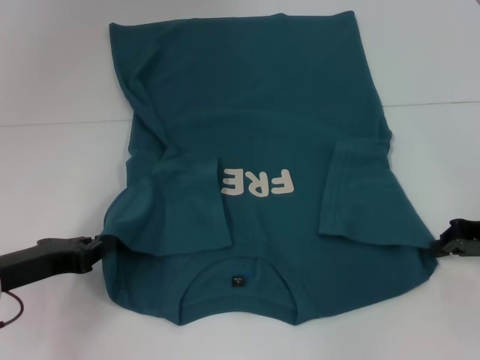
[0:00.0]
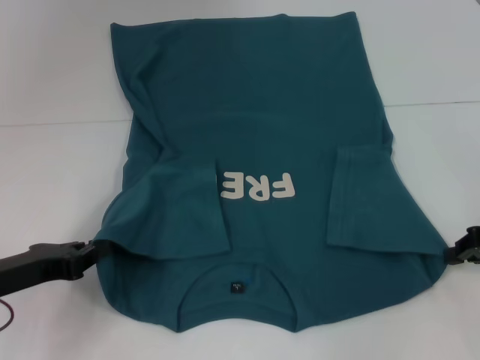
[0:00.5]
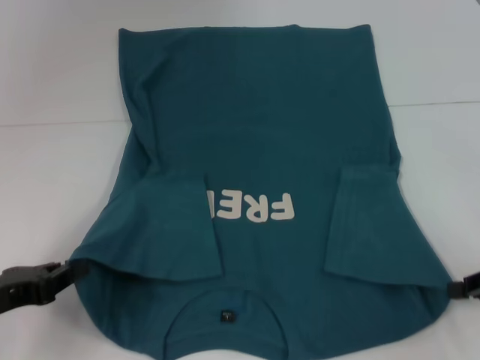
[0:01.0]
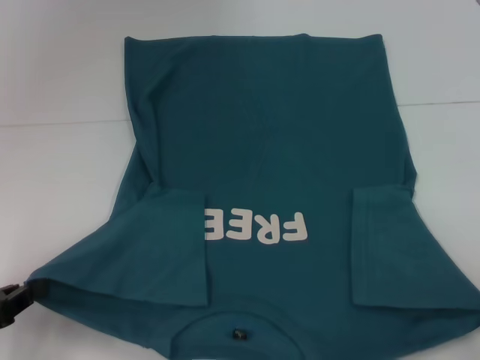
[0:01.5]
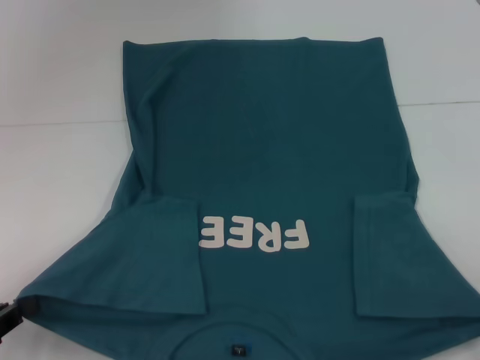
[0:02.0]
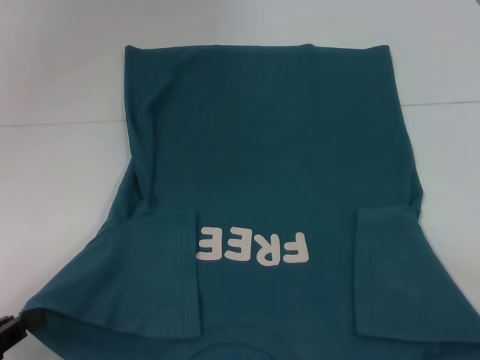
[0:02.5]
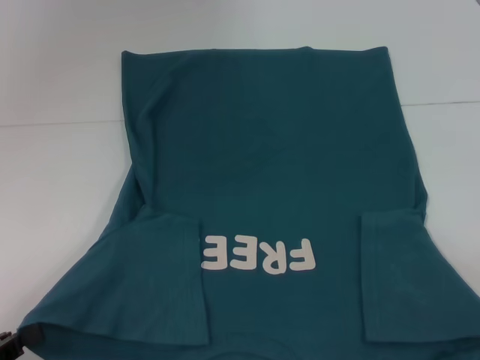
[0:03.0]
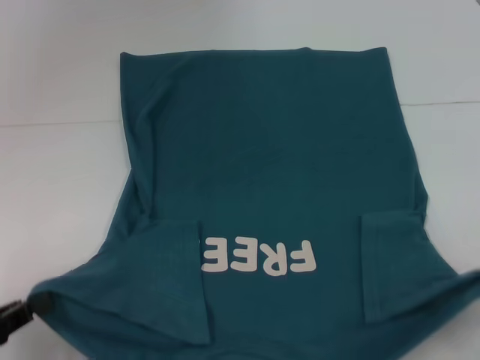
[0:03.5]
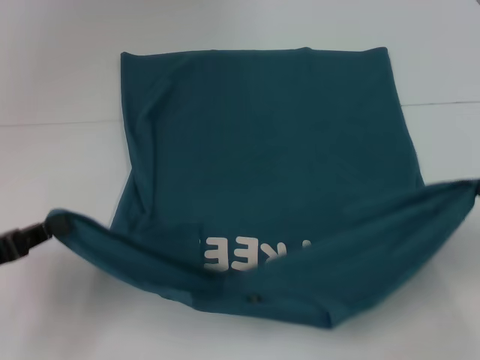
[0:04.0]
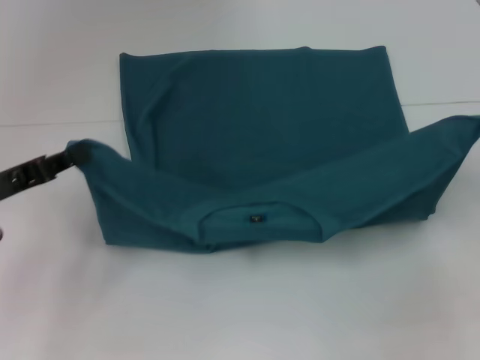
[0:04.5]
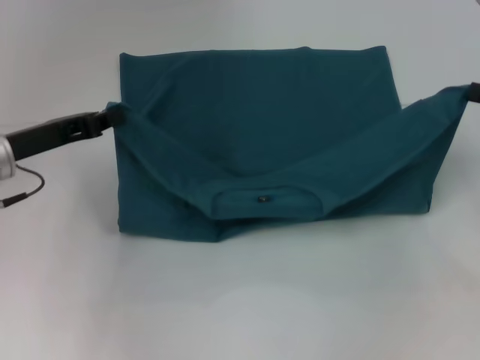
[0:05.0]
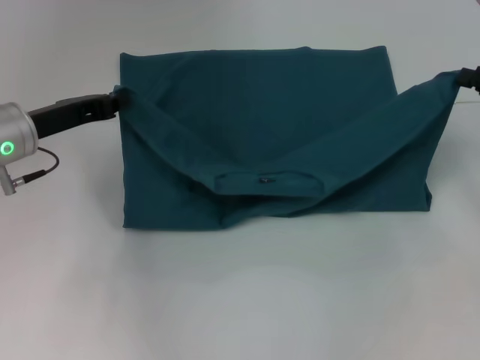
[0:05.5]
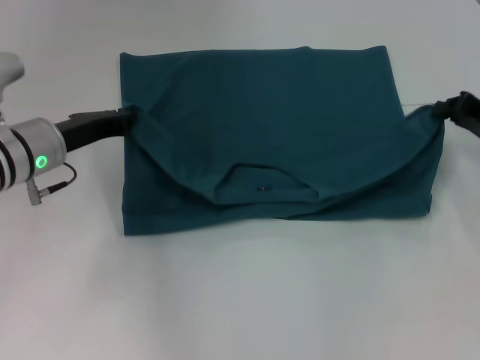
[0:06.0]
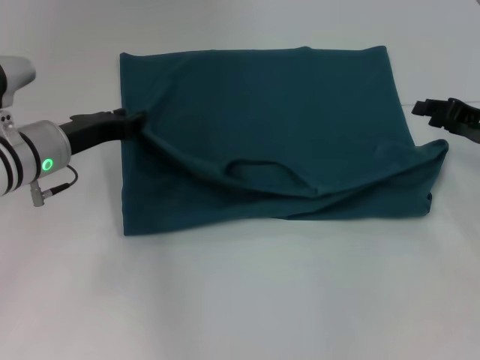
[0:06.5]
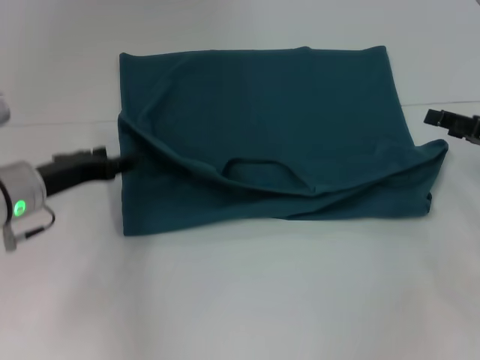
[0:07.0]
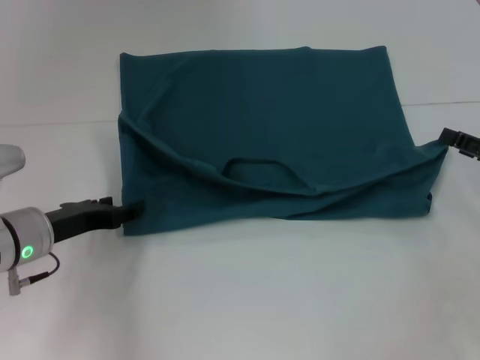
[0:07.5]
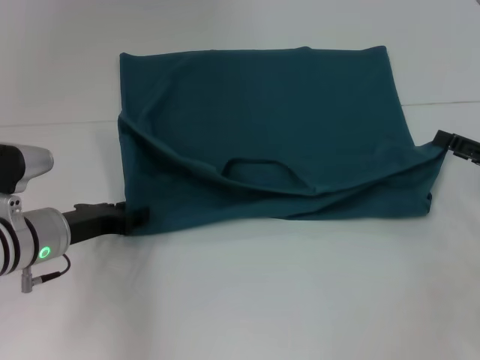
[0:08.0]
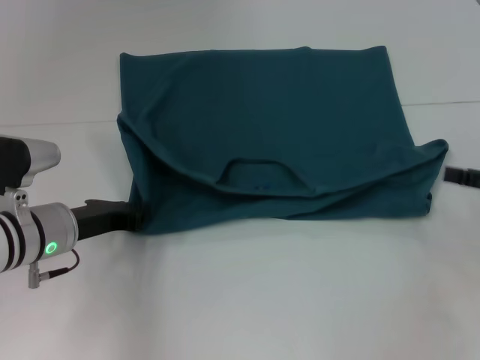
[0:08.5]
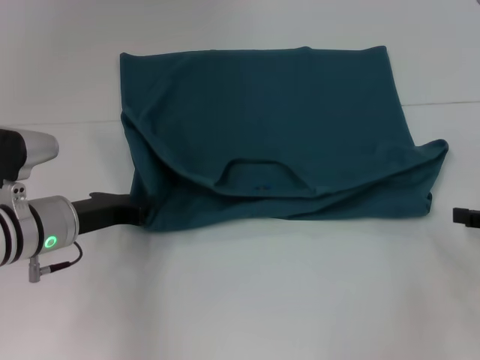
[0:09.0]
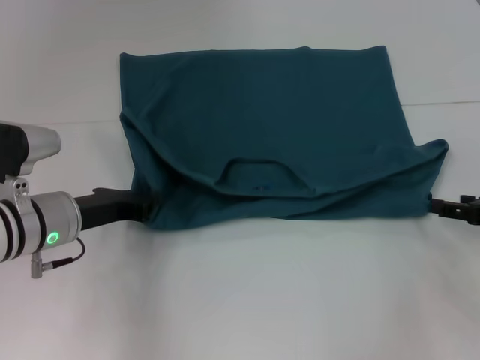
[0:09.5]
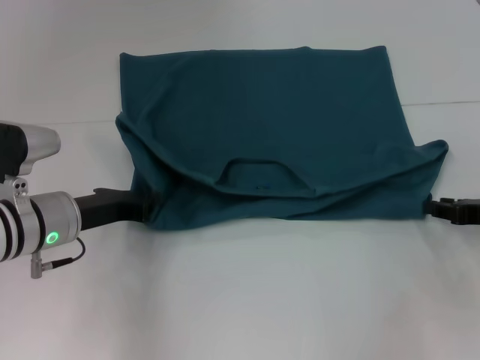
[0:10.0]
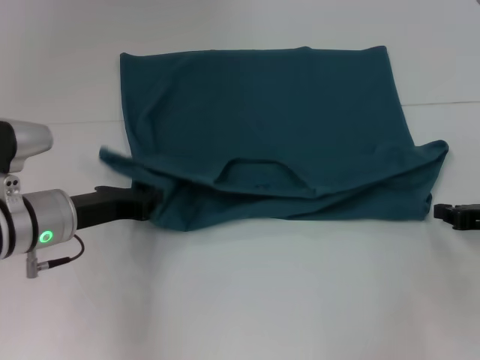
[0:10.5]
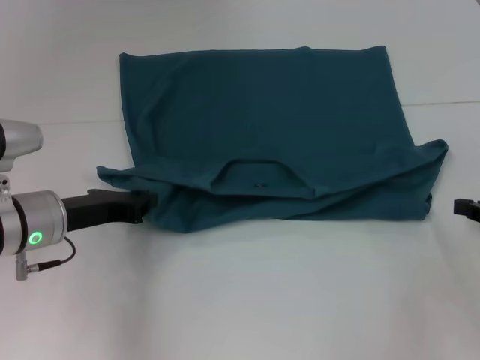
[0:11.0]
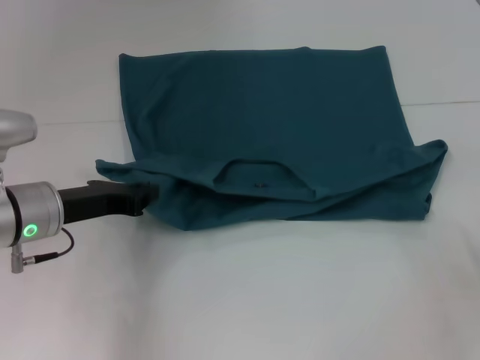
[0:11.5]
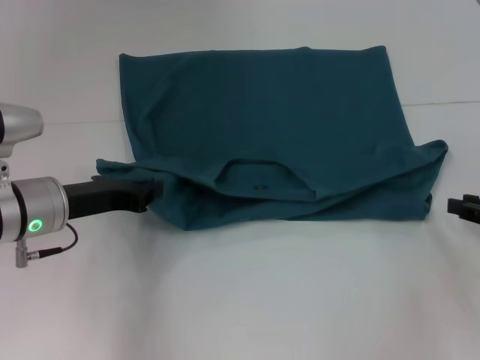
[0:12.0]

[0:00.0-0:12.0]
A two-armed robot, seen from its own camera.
Step, 0:00.0 to 0:02.0: Grab the bottom right corner with your right hand.
Step, 0:02.5 to 0:06.0: Fold the clothes to the left.
Step, 0:02.5 to 0:06.0: Fold the clothes to the right.
0:00.0 to 0:02.0: The right gripper goes roughly 15 cm backward and to the right; the left gripper moves backward and to the left, some 10 cm.
0:02.0 to 0:04.0: The left gripper moves forward, some 5 cm. The right gripper goes roughly 10 cm forward and upward.
0:04.0 to 0:06.0: The left gripper moves forward and to the right, roughly 20 cm. The right gripper is displaced forward by roughly 10 cm.
0:06.0 to 0:08.0: The right gripper heads backward, covering approximately 10 cm, and opens its fingers. Meanwhile the left gripper travels backward and downward by some 10 cm, and opens its fingers.
0:08.0 to 0:10.0: The left gripper closes up.
0:10.0 to 0:12.0: The right gripper closes.

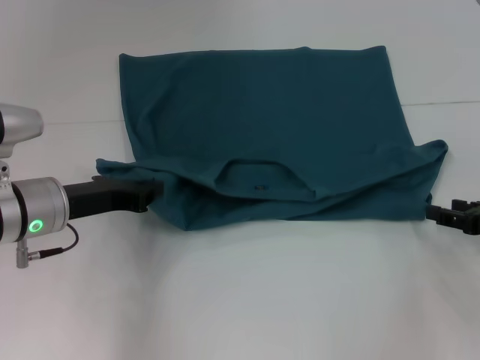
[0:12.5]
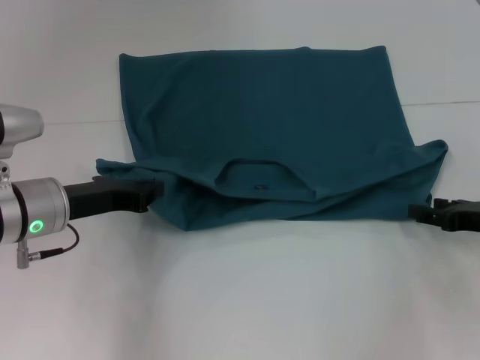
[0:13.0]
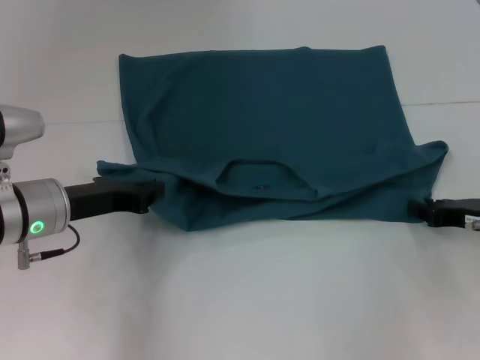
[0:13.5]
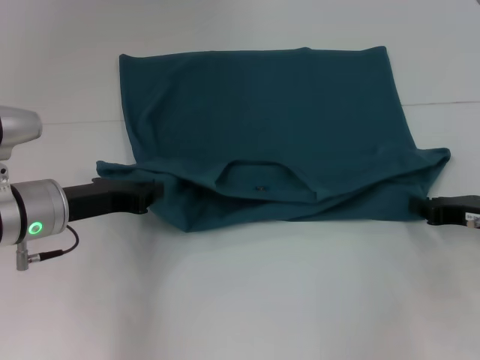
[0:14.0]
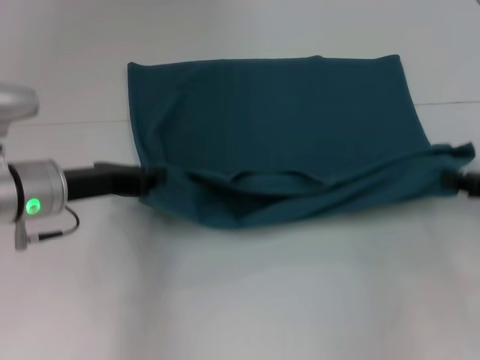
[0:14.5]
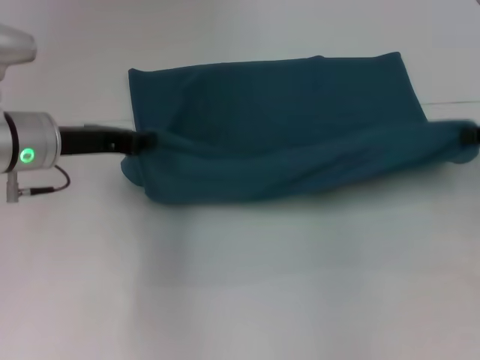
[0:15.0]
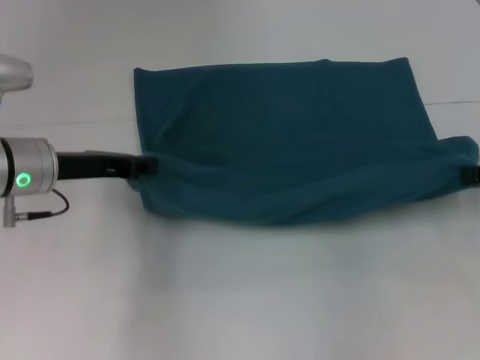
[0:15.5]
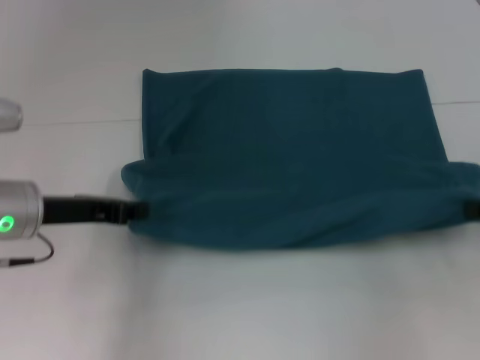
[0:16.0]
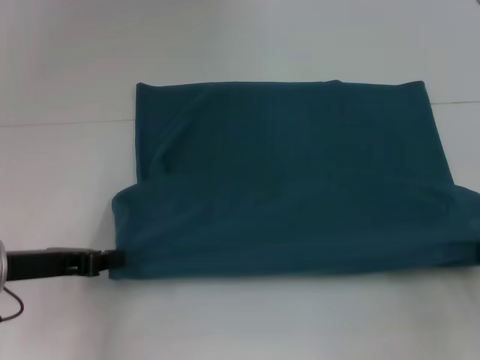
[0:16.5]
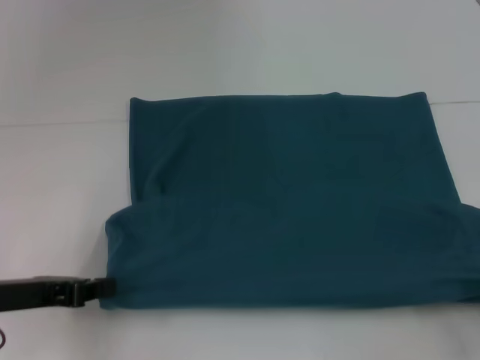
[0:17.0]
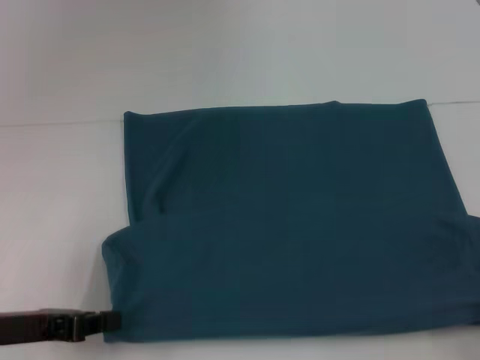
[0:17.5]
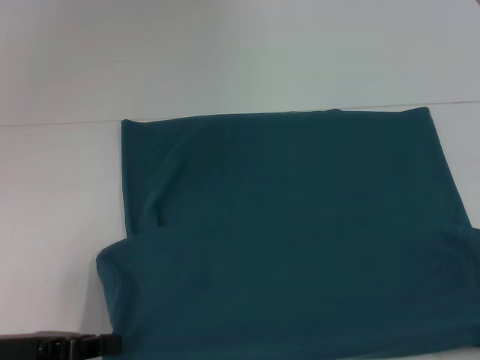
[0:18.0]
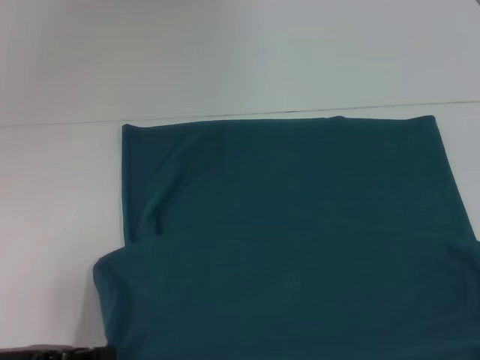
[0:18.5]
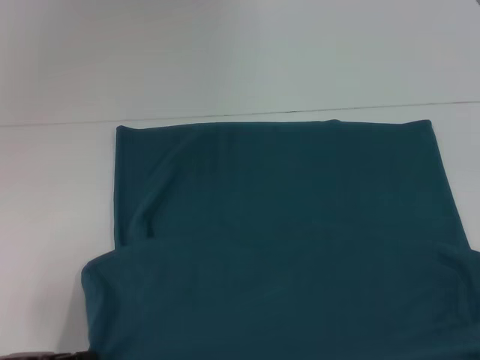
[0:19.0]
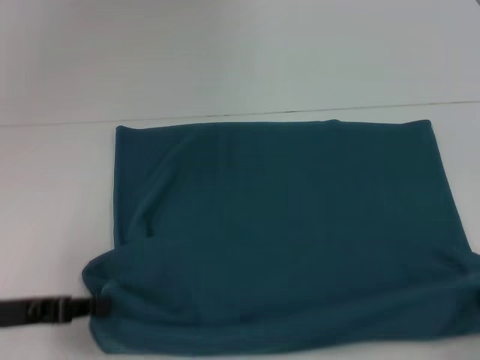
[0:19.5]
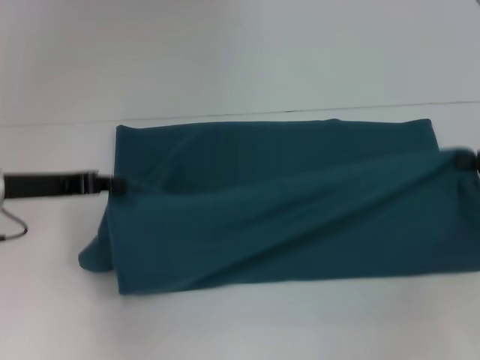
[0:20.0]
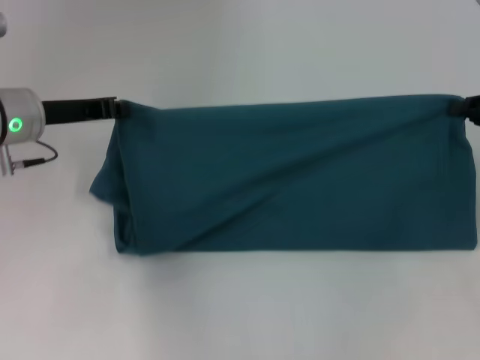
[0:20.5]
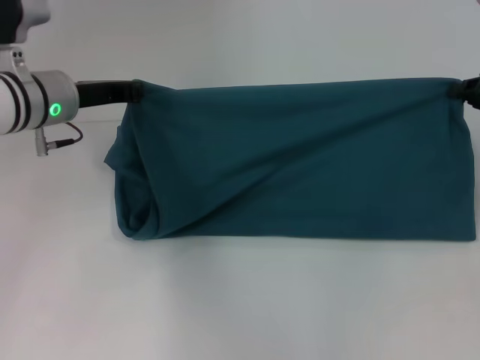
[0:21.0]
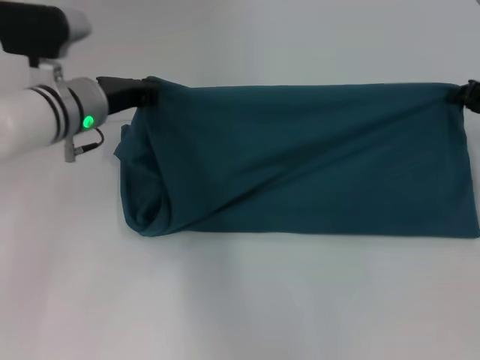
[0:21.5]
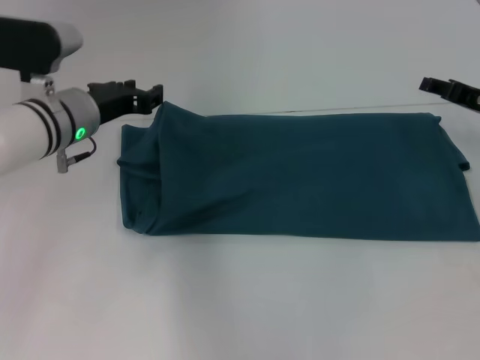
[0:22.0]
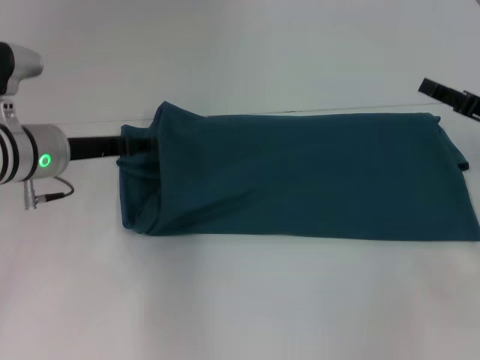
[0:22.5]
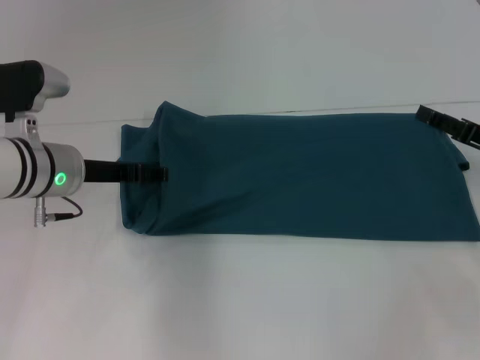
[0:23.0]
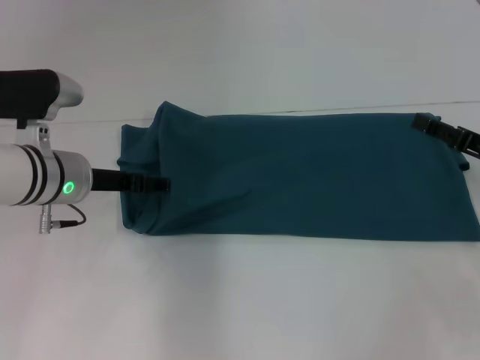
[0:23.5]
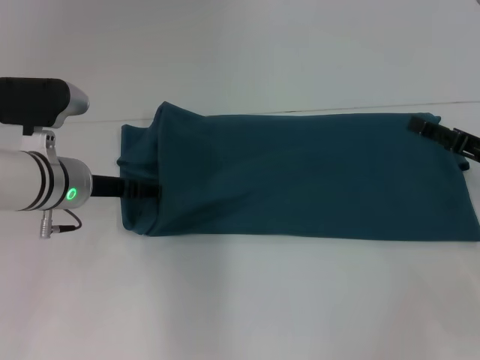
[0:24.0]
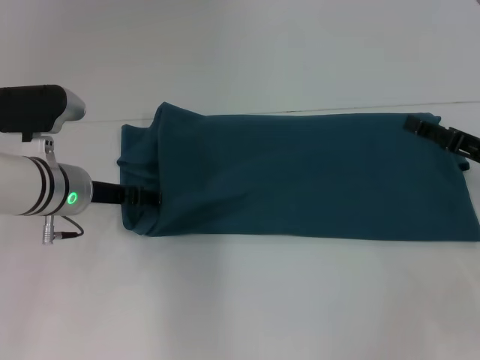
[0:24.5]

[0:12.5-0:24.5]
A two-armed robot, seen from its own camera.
Step, 0:12.5 to 0:17.0: Pull the clothes with your left hand.
Step, 0:12.5 to 0:17.0: Pull the clothes with your right hand.
Step, 0:17.5 to 0:21.5: Fold the clothes to the right.
0:12.5 to 0:14.5: The right gripper closes up.
0:14.5 to 0:16.5: The right gripper shifts about 5 cm backward, while the left gripper goes approximately 10 cm backward and to the left.
0:16.5 to 0:18.5: The grippers both shift backward by about 10 cm.
0:18.5 to 0:20.5: Both grippers travel together forward, some 20 cm.
0:20.5 to 0:22.5: The right gripper opens up, while the left gripper opens up.
0:22.5 to 0:24.5: There are only small adjustments of the grippers.

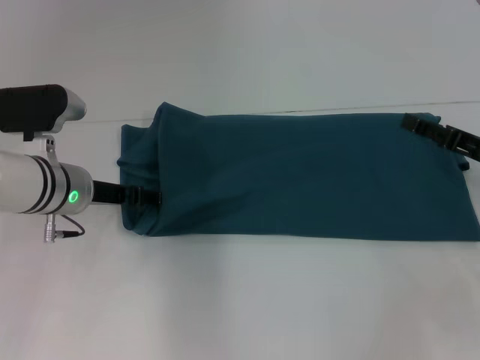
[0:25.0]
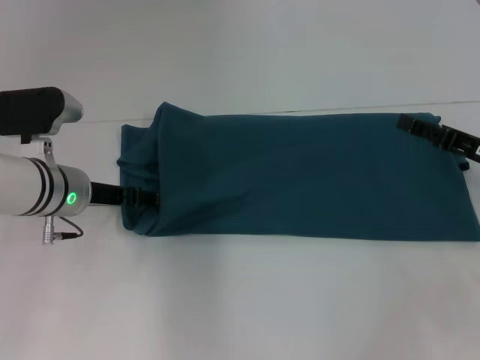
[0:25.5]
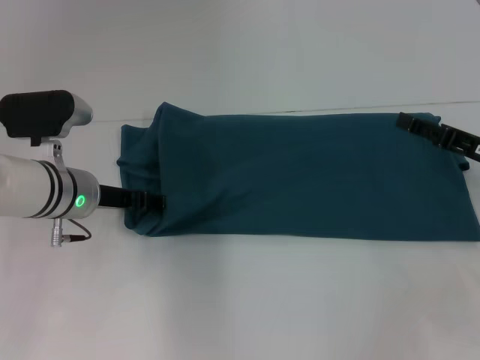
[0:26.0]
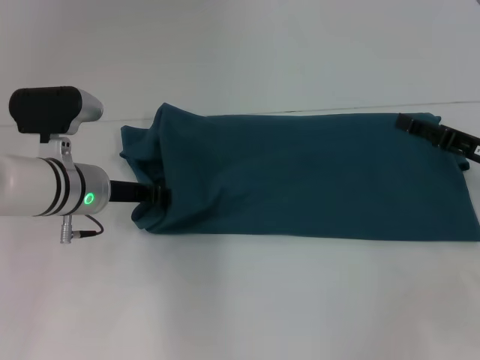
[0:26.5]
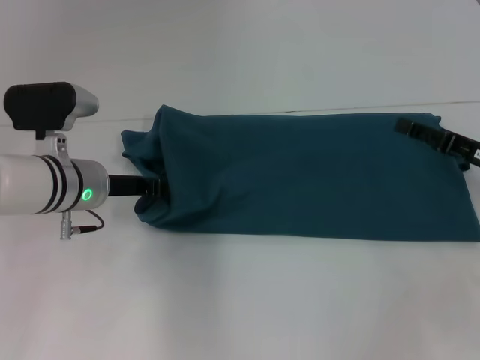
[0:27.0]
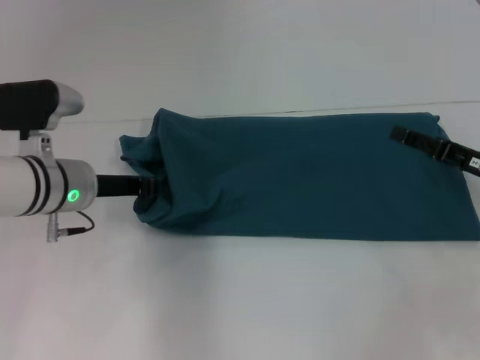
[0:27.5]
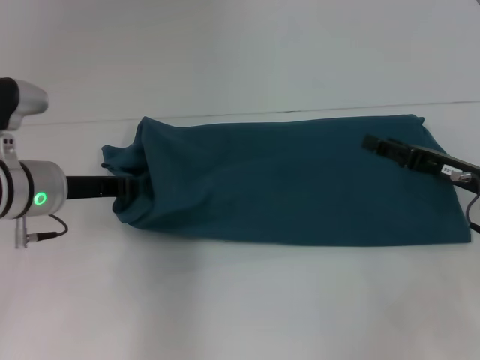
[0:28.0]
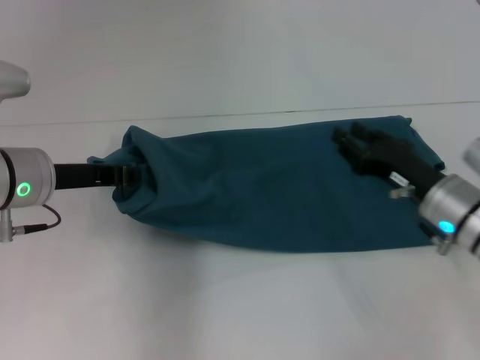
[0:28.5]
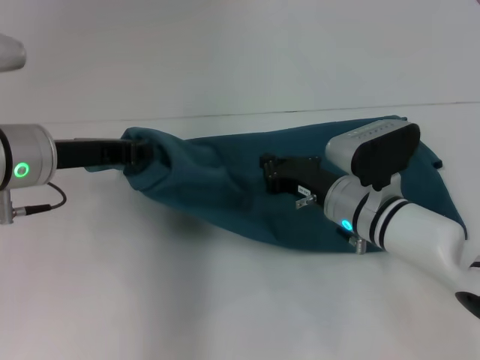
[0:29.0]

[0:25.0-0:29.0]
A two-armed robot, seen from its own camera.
0:25.0 to 0:27.0: The left gripper closes its fingers.
0:27.0 to 0:29.0: The left gripper goes some 10 cm upward, while the right gripper is displaced to the left by approximately 20 cm, and closes its fingers.
